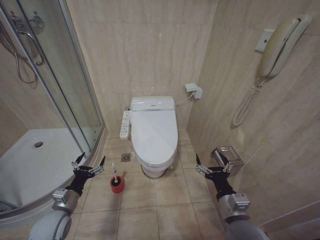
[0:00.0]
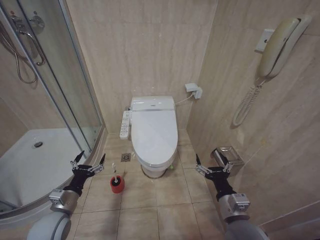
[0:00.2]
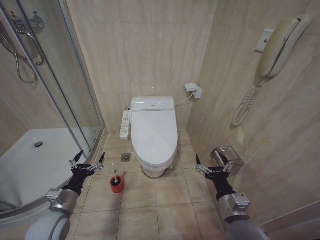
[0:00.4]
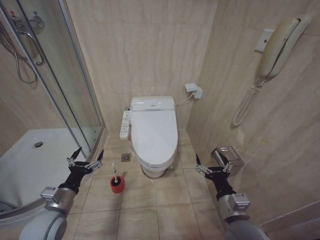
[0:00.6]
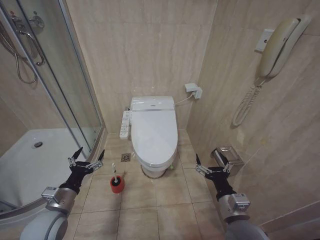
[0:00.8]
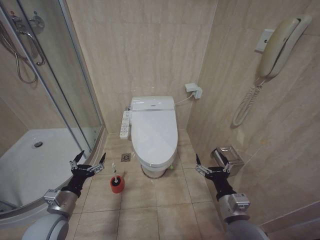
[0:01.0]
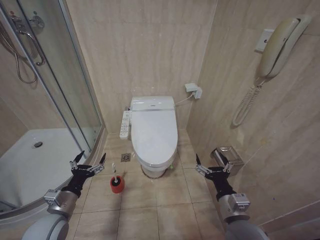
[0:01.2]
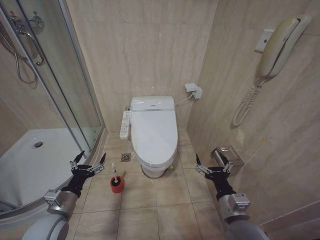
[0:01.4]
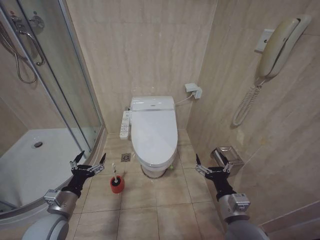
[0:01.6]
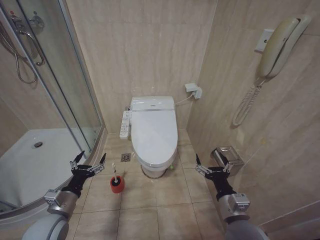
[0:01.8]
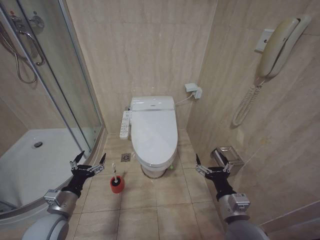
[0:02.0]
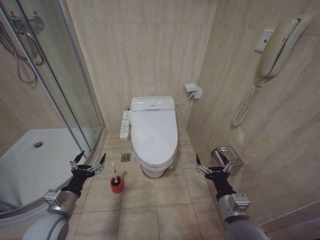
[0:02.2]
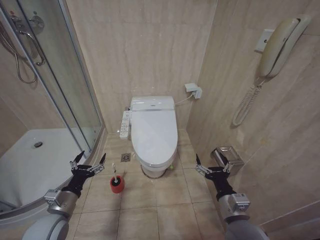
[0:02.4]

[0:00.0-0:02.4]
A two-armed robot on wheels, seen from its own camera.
Task of the whole recording: Open the toilet lid, clean the toilet bowl with a toilet brush, close the toilet lid, and flush.
0:00.0 to 0:01.2: The left gripper changes place by approximately 5 cm.
0:01.2 to 0:02.4: Both grippers stay about where they are.

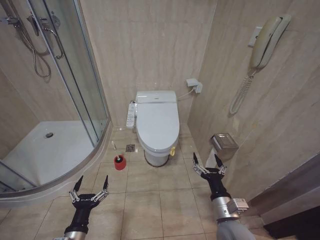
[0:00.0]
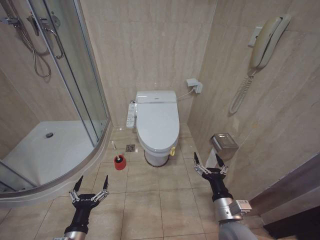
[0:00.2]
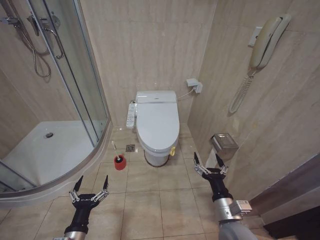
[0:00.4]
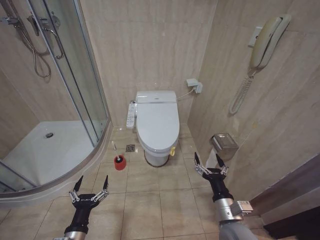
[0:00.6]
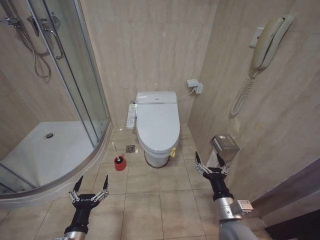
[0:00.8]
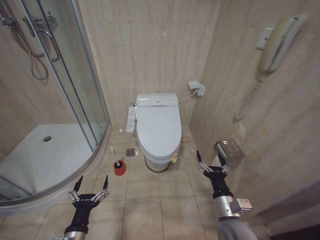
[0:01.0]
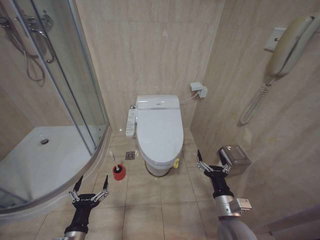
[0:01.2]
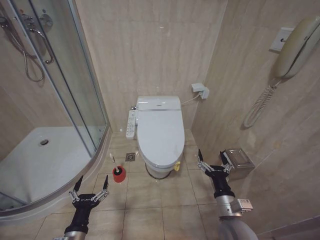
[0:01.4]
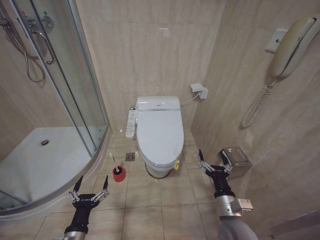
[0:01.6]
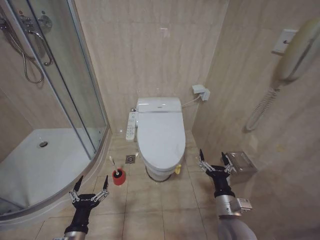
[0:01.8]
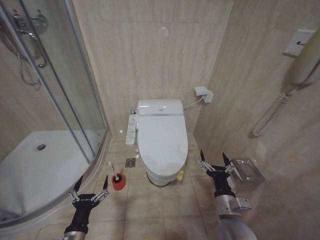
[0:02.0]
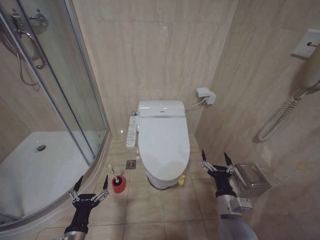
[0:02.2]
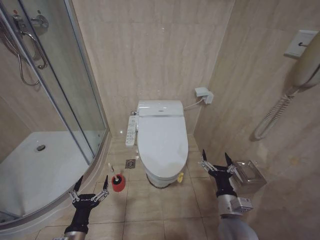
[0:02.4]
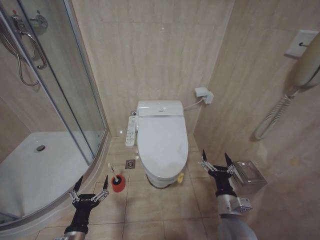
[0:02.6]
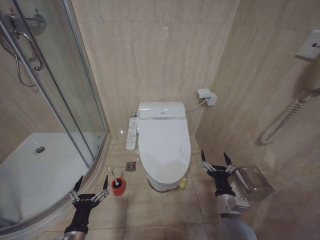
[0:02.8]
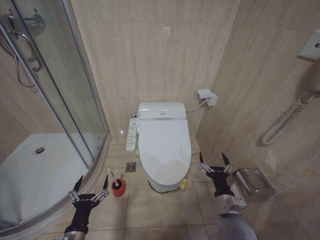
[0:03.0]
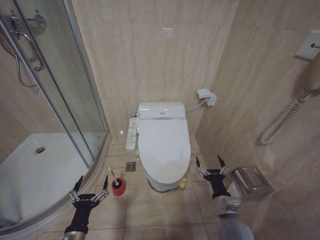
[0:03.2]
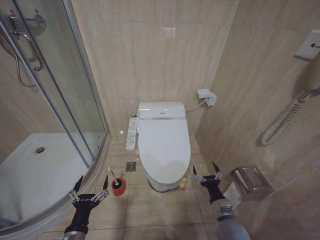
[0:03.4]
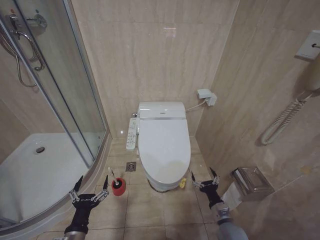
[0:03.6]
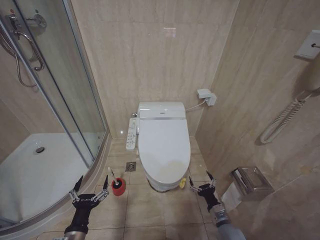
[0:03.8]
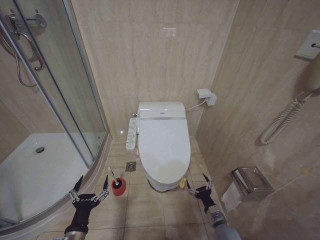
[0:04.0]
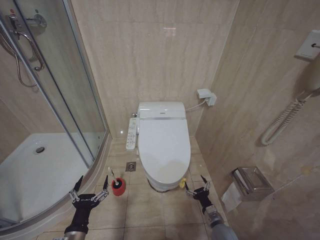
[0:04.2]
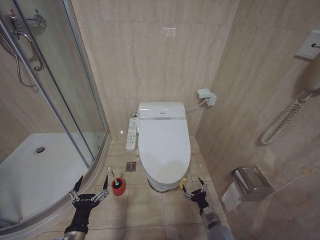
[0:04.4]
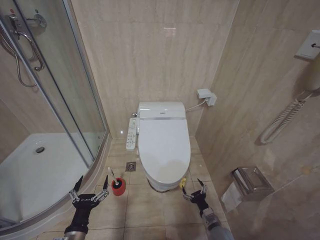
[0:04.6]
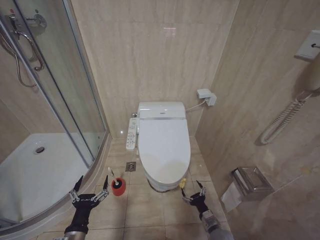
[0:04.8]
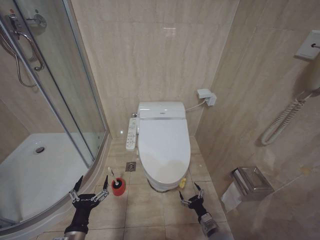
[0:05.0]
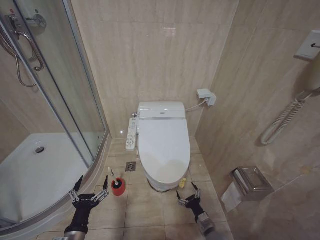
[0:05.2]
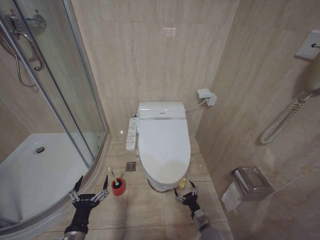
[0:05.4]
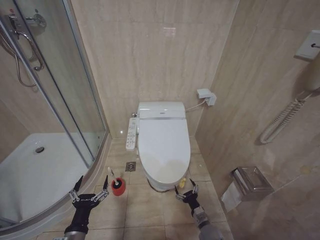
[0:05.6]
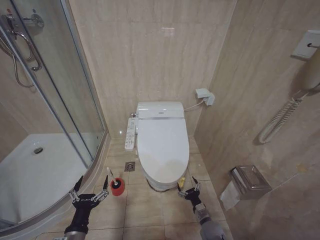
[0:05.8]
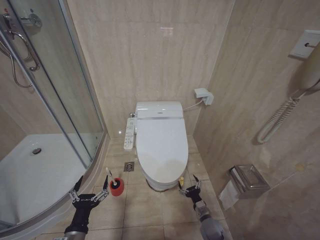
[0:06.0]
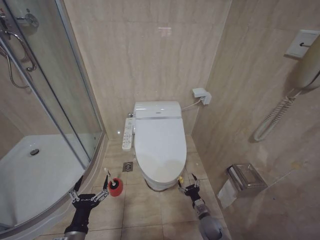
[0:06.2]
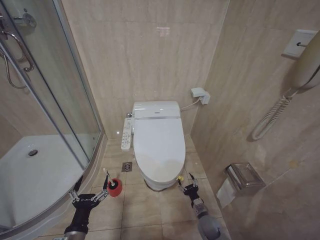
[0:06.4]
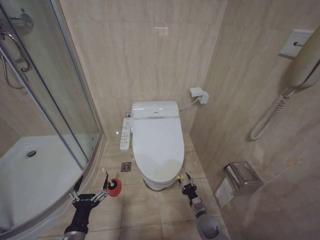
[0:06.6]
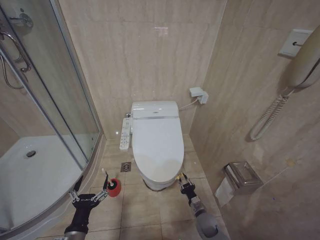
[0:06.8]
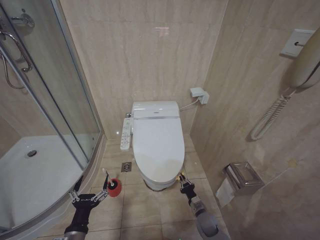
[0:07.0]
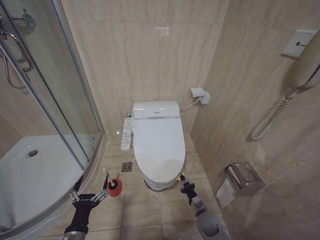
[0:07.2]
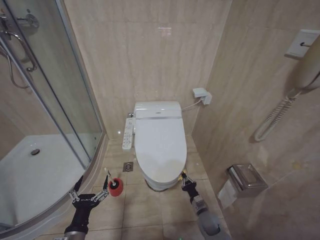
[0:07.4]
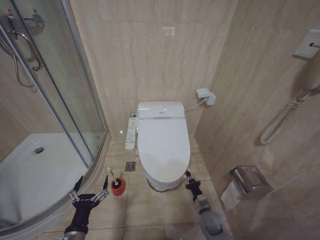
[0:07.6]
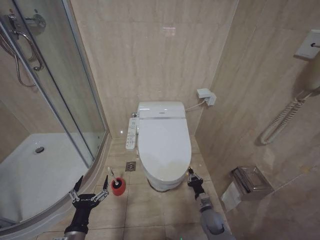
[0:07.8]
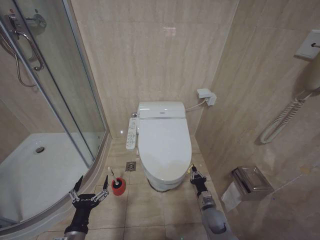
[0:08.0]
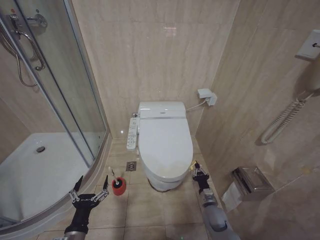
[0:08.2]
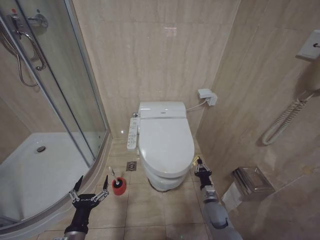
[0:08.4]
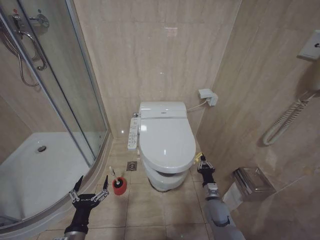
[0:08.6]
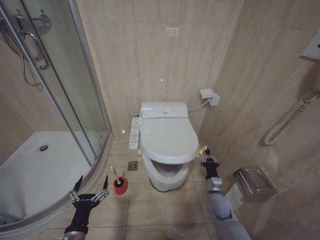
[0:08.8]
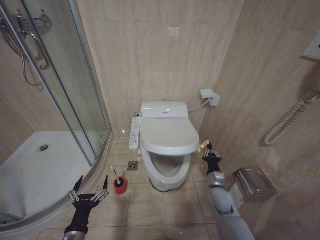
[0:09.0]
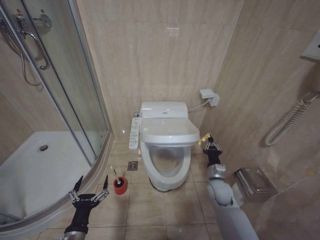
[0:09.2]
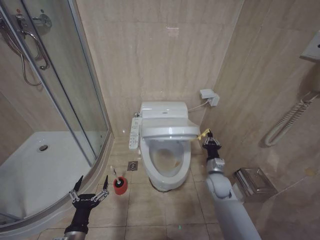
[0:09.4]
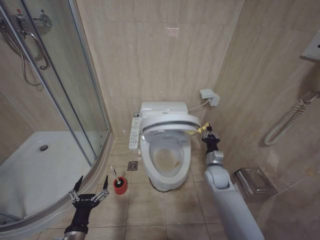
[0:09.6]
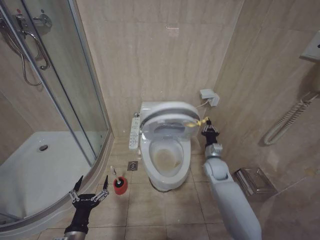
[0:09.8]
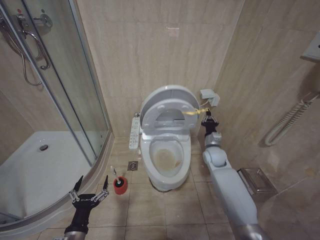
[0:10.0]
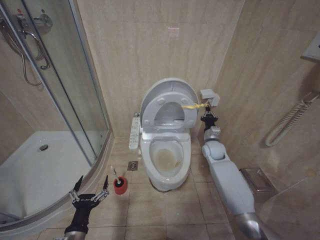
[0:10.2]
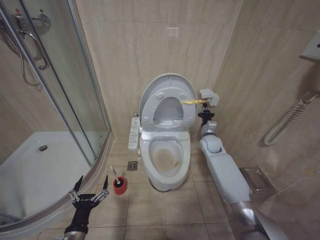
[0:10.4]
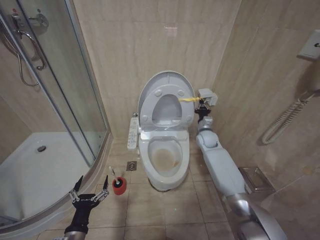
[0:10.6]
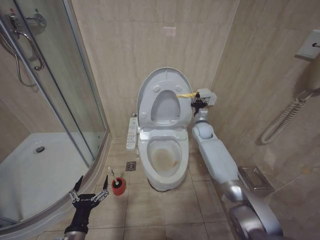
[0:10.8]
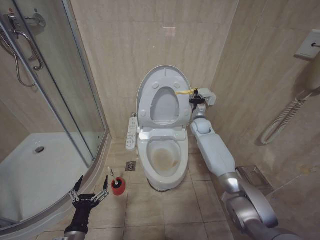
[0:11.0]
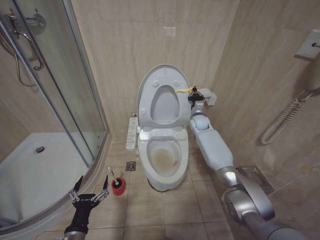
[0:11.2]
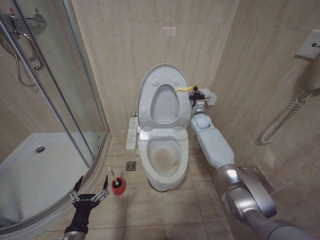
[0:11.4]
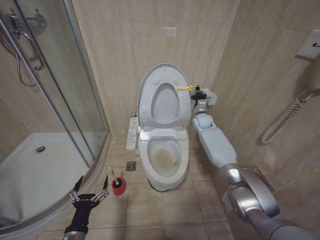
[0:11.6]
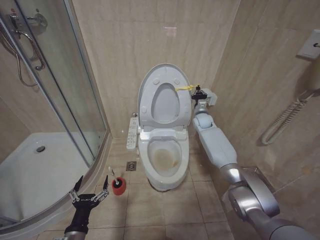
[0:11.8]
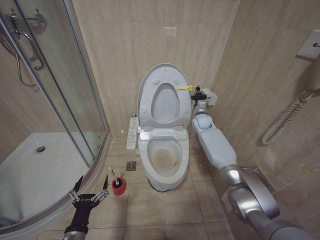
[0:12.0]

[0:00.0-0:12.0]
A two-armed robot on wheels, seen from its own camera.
Task of the whole recording: Open the toilet lid, clean the toilet bowl with a toilet brush, close the toilet lid, and flush.
0:01.6 to 0:03.0: The grippers stay close to where they were, moving slightly.
0:03.0 to 0:04.4: The right gripper shifts approximately 20 cm downward.
0:04.4 to 0:06.0: The grippers make only small movements.
0:06.0 to 0:07.6: The right gripper closes up.
0:07.6 to 0:09.0: The right gripper moves upward, about 10 cm.
0:09.0 to 0:10.4: The right gripper goes approximately 25 cm forward and upward.
0:10.4 to 0:12.0: The right gripper is displaced forward and upward by some 15 cm.

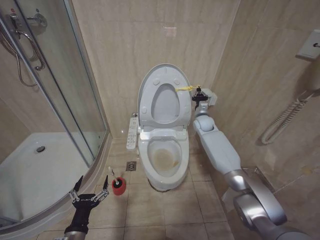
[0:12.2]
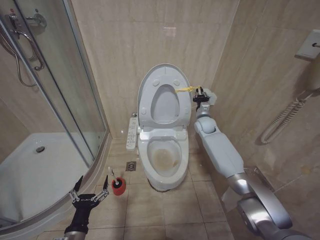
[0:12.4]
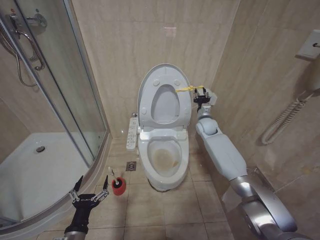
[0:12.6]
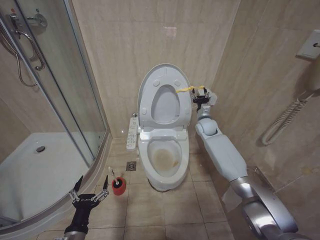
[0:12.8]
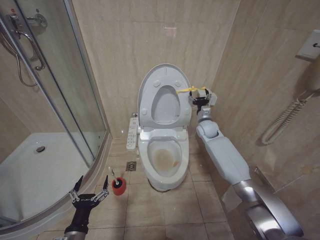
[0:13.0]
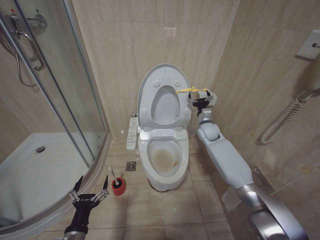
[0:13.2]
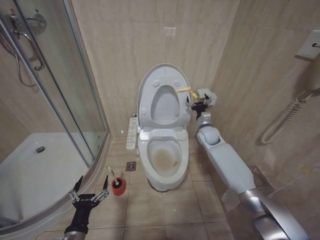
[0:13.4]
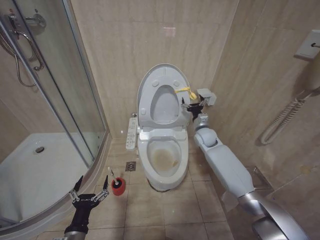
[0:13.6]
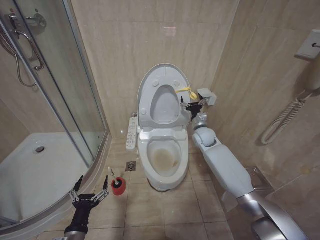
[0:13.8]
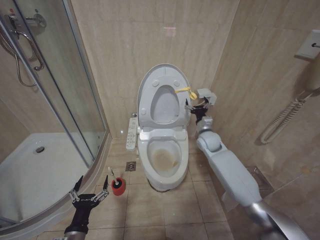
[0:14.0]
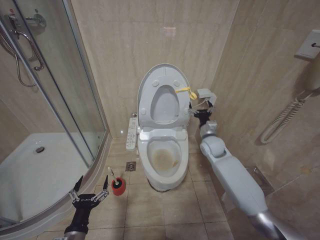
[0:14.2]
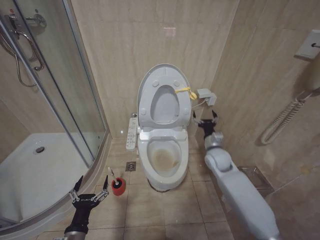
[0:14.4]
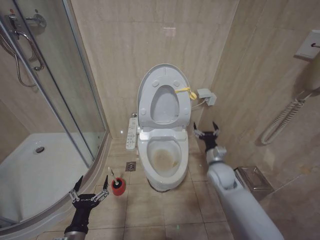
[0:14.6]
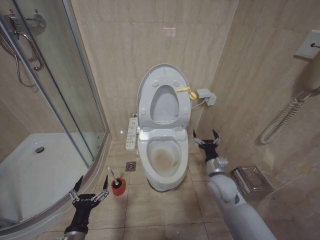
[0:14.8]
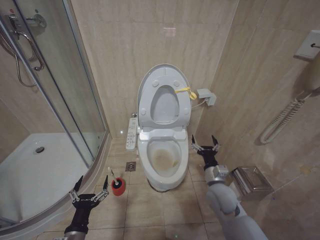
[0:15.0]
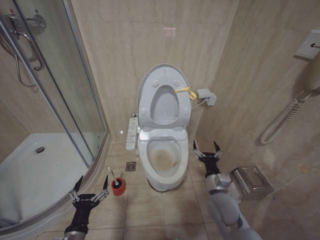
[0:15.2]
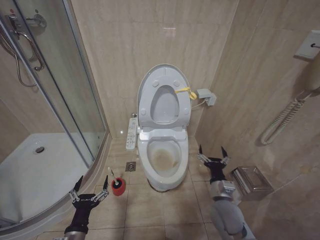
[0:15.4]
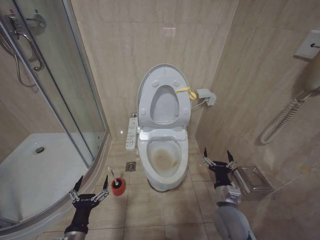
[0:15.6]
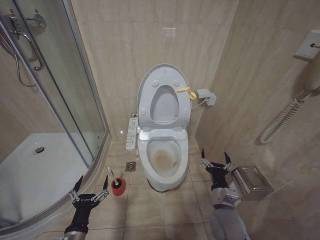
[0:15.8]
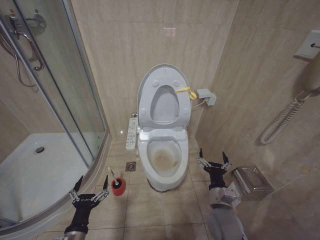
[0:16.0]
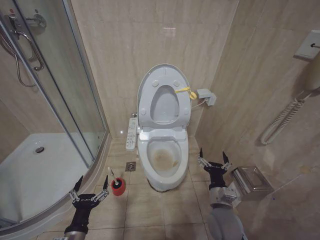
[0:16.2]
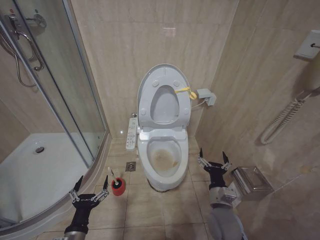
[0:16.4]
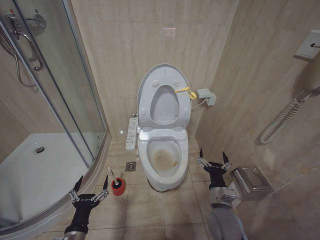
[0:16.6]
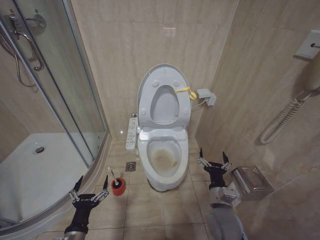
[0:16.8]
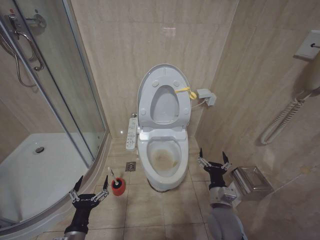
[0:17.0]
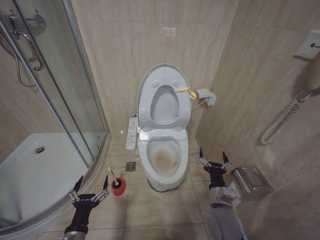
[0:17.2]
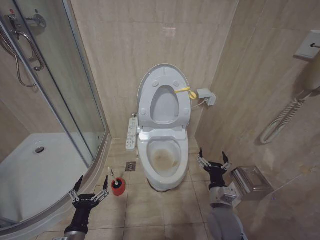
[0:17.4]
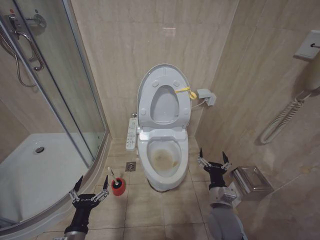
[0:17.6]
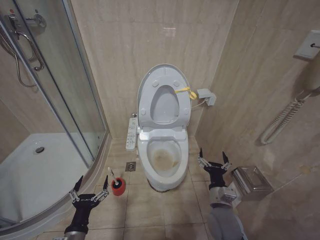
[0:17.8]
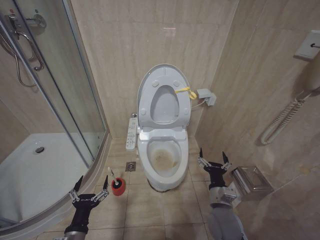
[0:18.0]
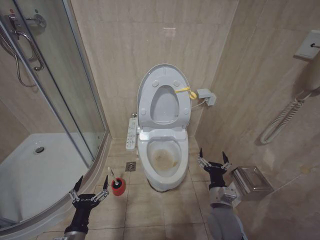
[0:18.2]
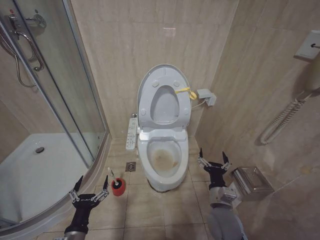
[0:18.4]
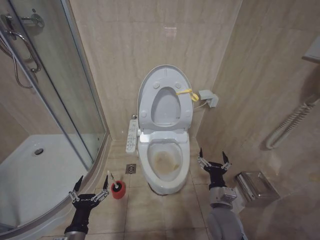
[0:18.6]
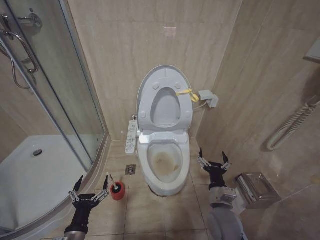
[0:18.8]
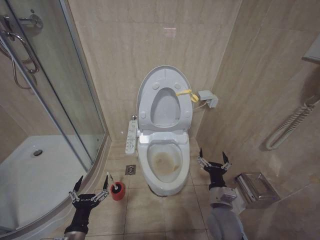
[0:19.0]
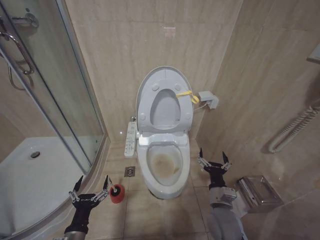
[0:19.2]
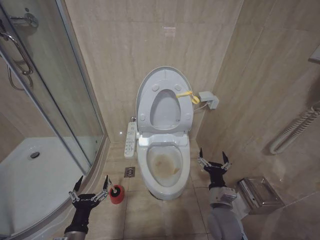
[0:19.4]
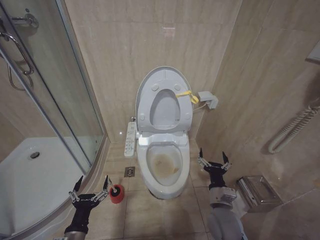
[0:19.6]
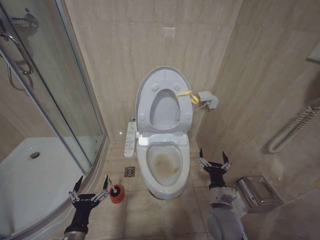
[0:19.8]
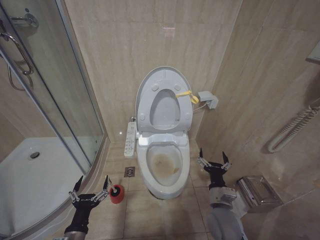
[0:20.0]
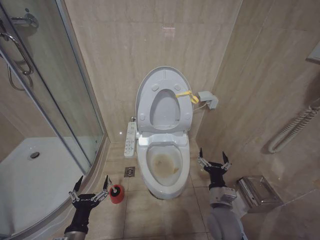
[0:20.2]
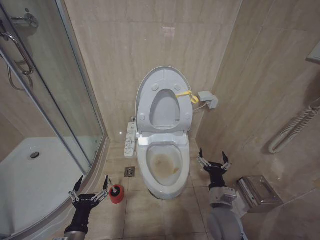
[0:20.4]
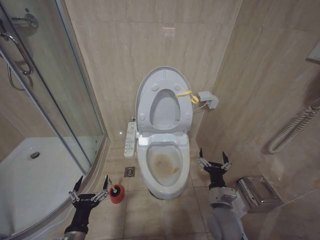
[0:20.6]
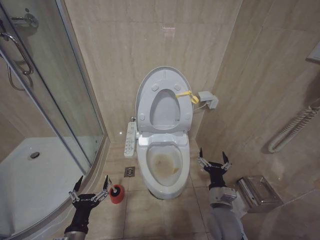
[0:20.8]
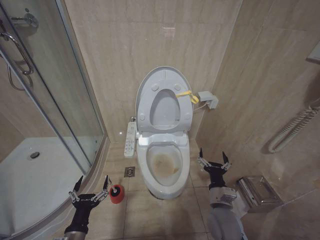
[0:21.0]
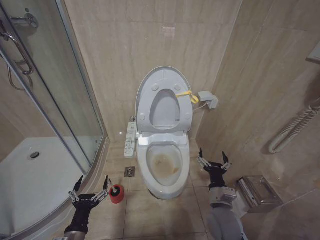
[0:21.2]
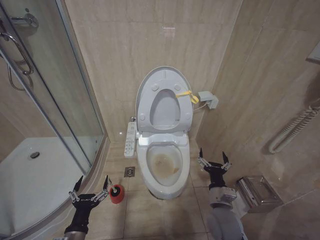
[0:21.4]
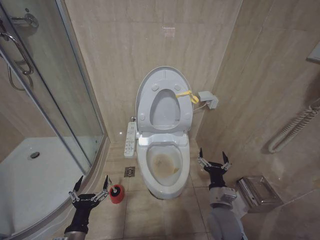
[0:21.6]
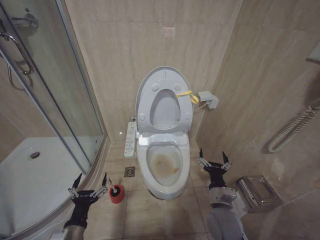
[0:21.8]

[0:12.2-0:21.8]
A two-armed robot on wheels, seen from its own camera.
Task of the whole recording: Open the toilet lid, clean the toilet bowl with a toilet brush, close the toilet lid, and flush.
0:12.2 to 0:13.8: The right gripper is displaced backward by about 10 cm, and opens up.
0:13.8 to 0:15.4: The right gripper goes approximately 30 cm backward and downward.
0:15.4 to 0:17.0: The grippers move only a little.
0:17.0 to 0:21.8: Both grippers stay about where they are.
